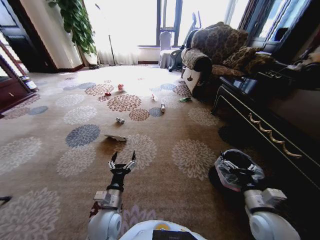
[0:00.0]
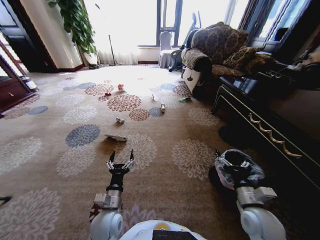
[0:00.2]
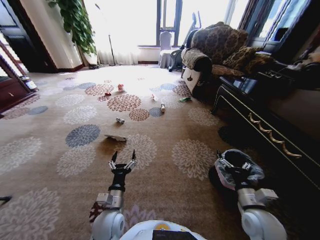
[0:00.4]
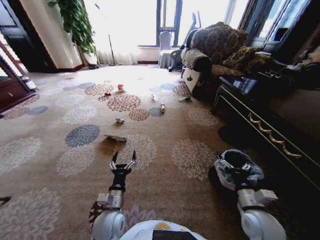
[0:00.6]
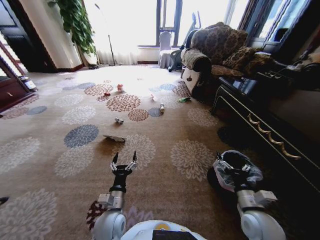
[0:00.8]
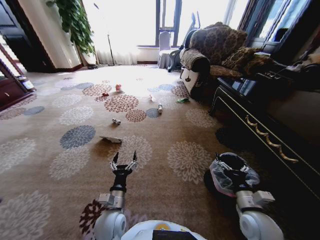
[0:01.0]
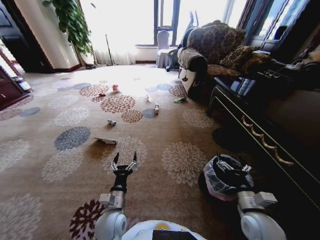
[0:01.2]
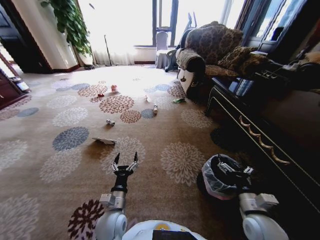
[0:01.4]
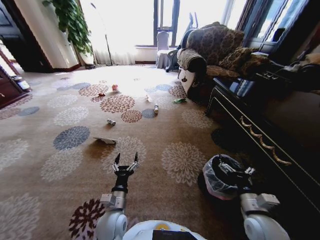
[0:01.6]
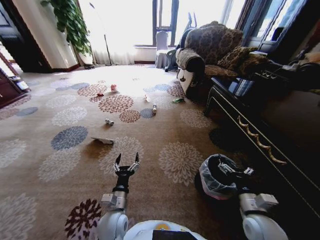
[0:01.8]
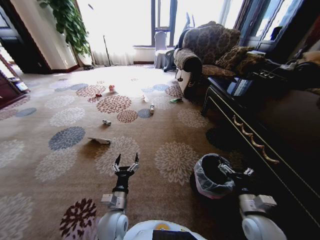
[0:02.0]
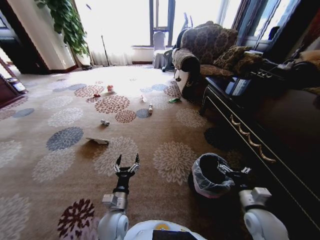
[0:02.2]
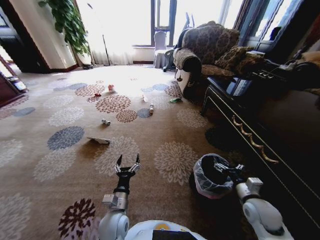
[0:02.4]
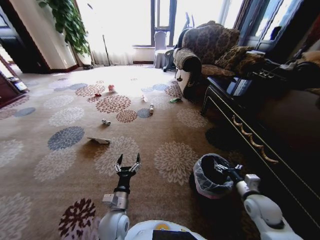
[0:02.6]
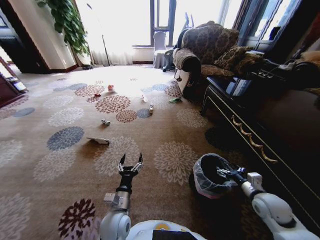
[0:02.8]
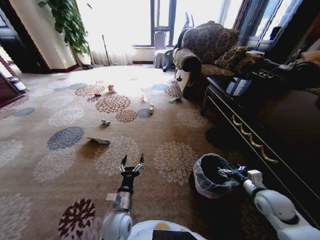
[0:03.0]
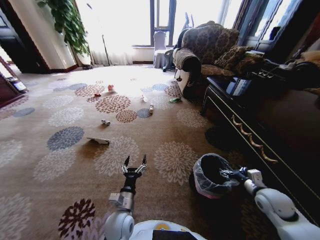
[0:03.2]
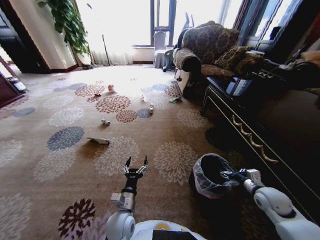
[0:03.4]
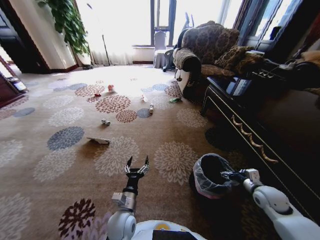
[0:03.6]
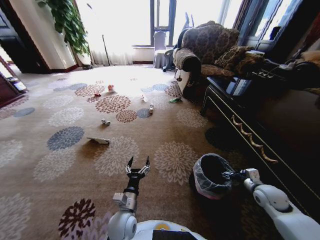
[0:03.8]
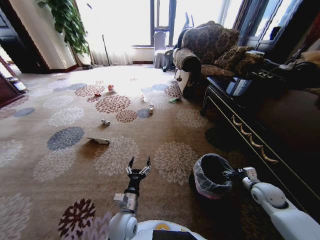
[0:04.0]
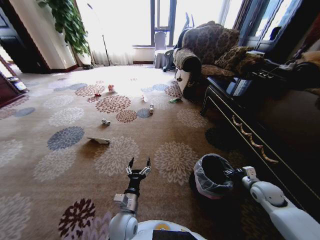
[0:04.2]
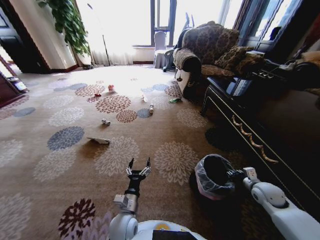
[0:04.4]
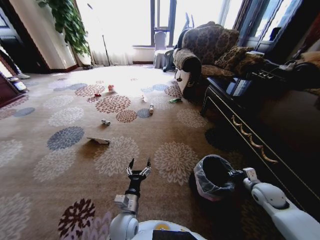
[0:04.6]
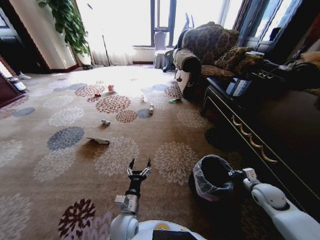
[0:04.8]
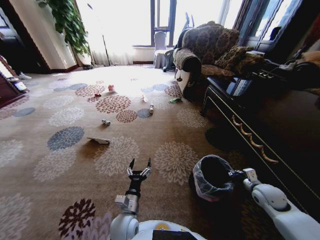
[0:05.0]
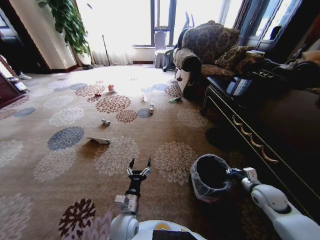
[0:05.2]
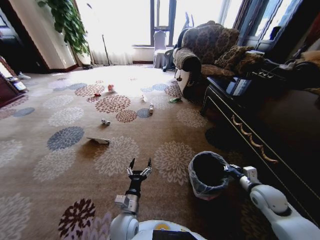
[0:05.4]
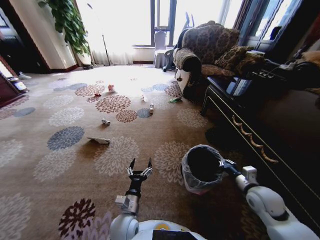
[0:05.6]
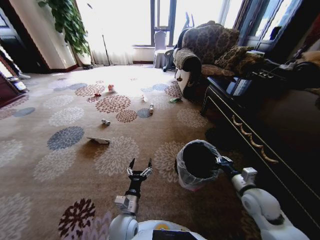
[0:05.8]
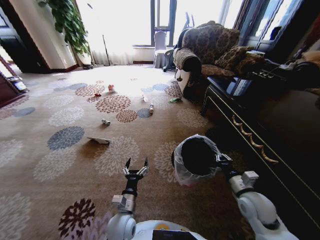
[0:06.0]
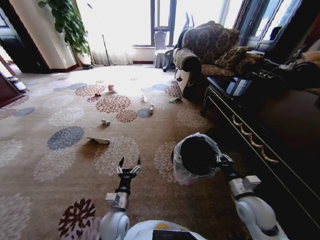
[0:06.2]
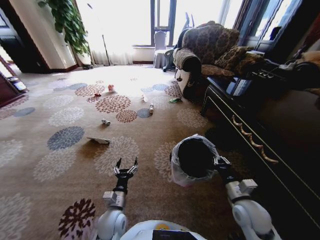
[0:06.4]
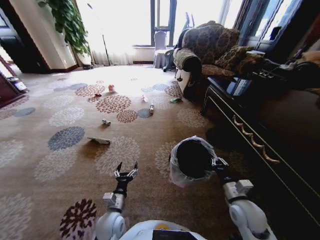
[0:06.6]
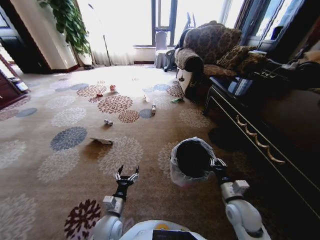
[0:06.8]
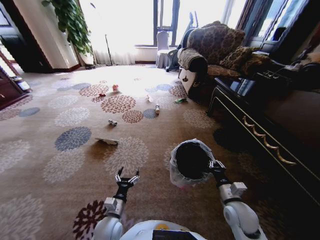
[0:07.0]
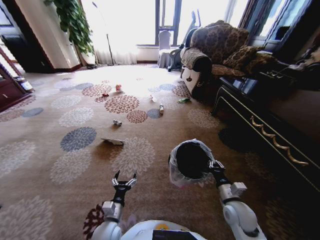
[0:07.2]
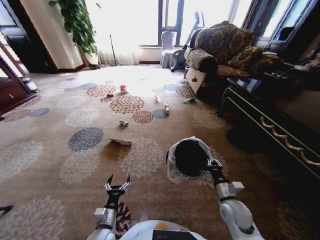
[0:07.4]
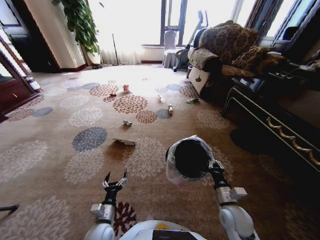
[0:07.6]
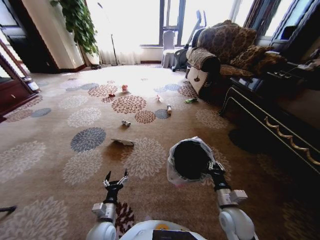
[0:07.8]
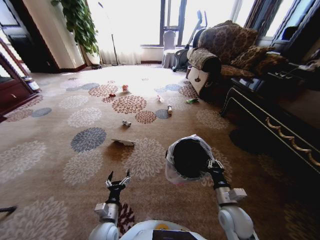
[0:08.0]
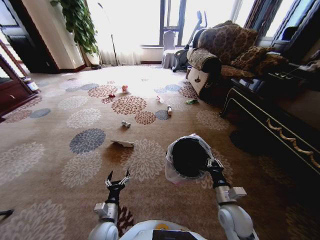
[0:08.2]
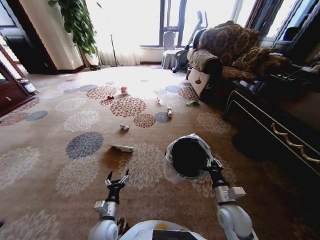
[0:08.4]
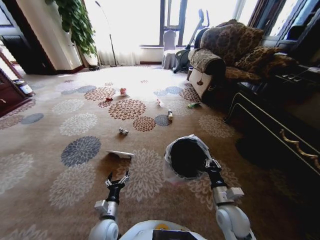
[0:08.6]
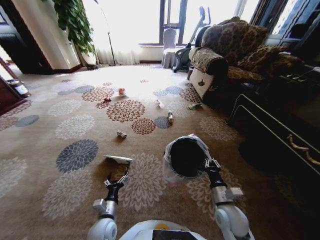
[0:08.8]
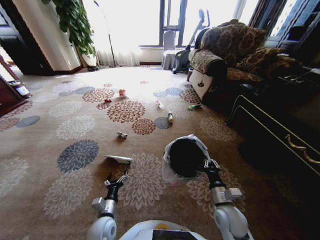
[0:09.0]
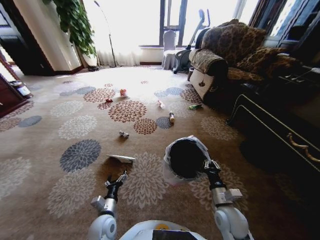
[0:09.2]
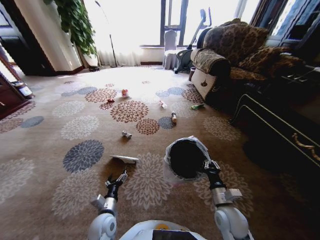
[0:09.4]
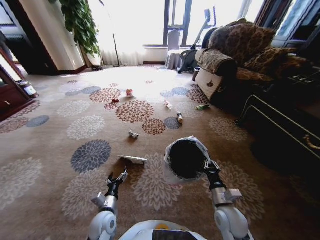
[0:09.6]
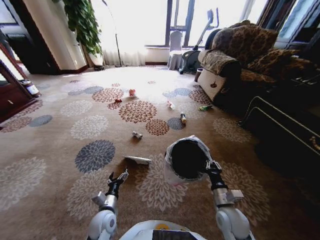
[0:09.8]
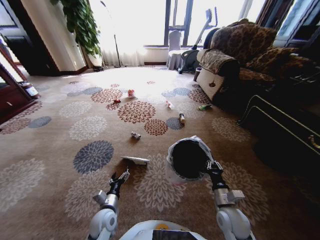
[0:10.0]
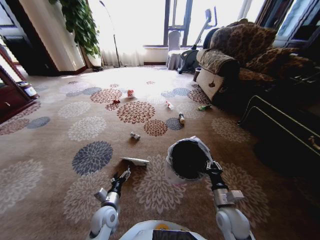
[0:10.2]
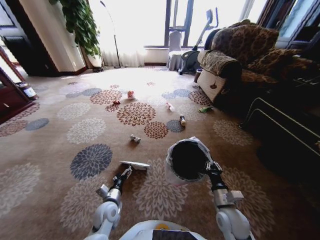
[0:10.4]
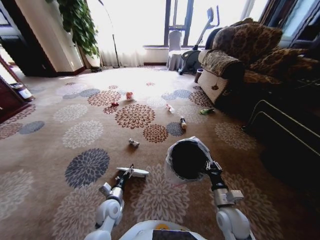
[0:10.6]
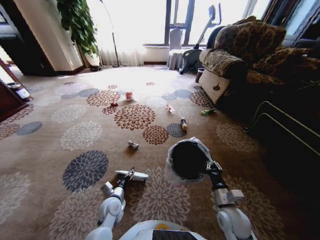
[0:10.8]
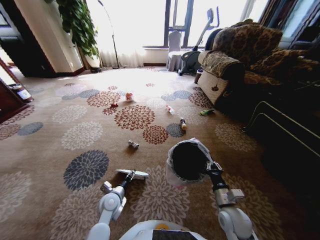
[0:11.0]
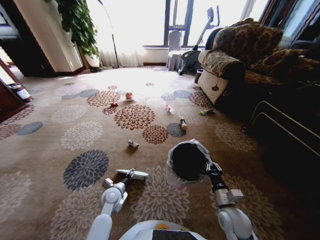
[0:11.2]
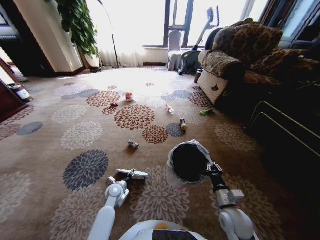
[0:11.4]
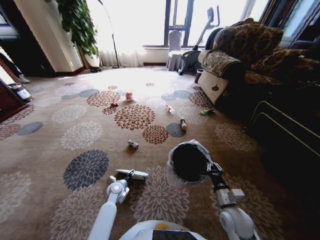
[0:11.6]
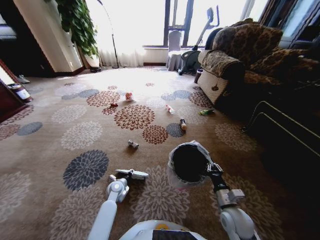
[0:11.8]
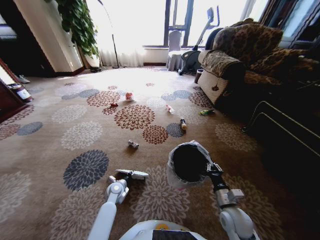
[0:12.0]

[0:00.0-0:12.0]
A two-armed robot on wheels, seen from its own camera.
Task of the whole recording: Pick up the trash from the ground and place it into the trash bin.
0:01.6 to 0:03.0: The right gripper shifts about 10 cm to the right and forward.
0:03.0 to 0:04.4: The right gripper ends up some 10 cm from where it was, and closes.
0:04.4 to 0:06.0: The right gripper heads to the left and backward, covering about 15 cm, and closes its fingers.
0:06.0 to 0:07.6: The right gripper goes about 10 cm to the left and downward. The left gripper goes some 10 cm to the left.
0:10.4 to 0:12.0: The left gripper is displaced forward and downward by roughly 10 cm, and closes up.

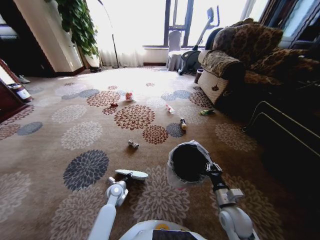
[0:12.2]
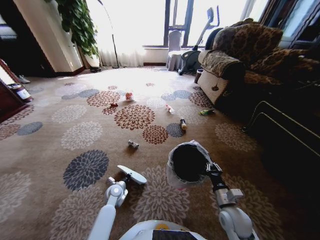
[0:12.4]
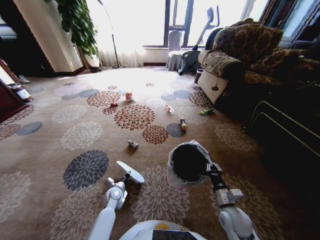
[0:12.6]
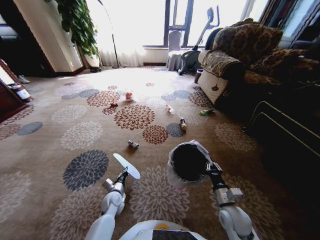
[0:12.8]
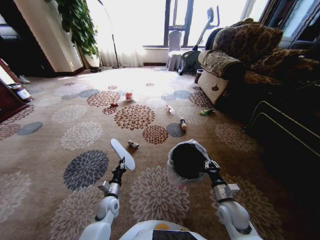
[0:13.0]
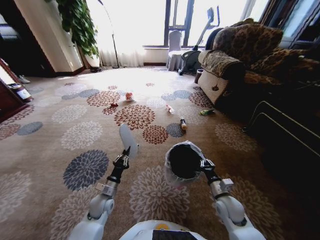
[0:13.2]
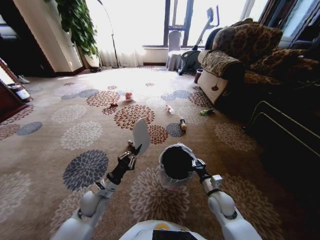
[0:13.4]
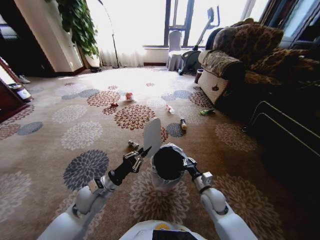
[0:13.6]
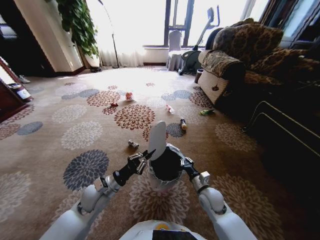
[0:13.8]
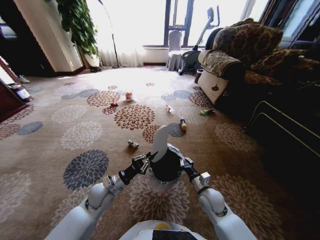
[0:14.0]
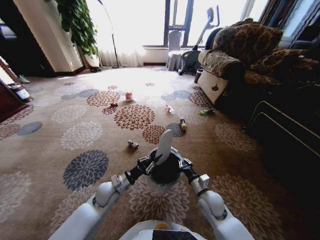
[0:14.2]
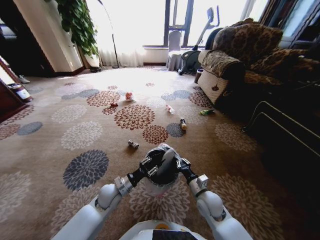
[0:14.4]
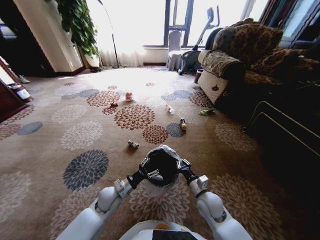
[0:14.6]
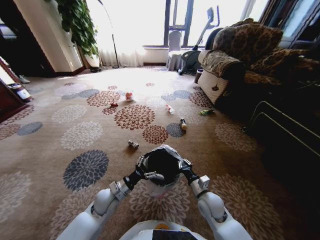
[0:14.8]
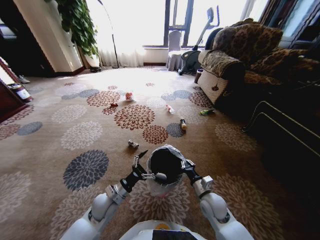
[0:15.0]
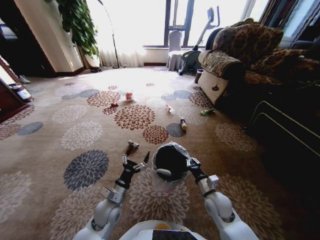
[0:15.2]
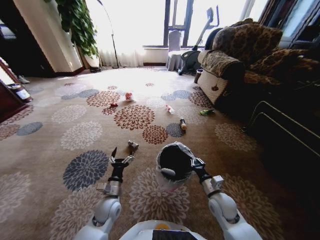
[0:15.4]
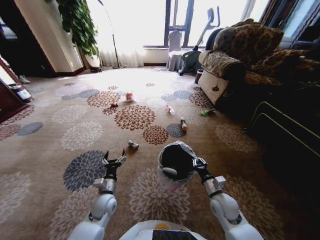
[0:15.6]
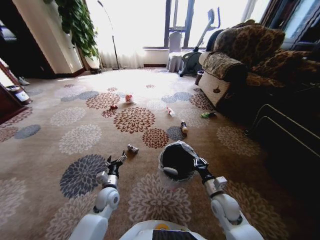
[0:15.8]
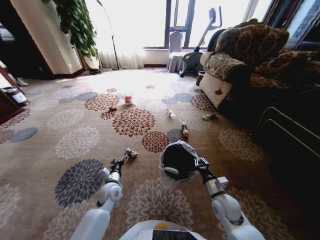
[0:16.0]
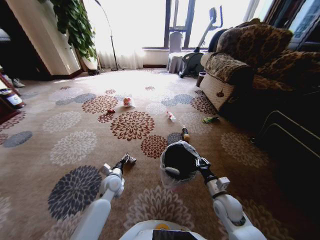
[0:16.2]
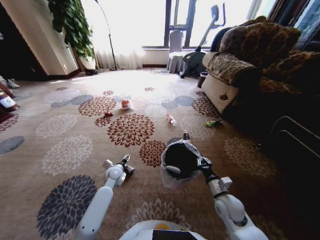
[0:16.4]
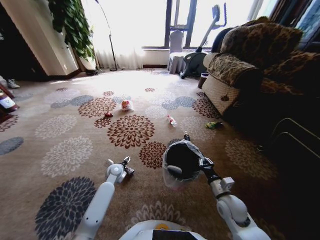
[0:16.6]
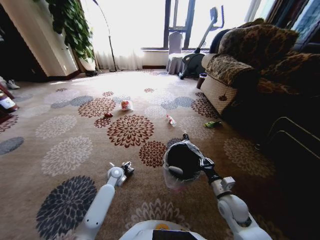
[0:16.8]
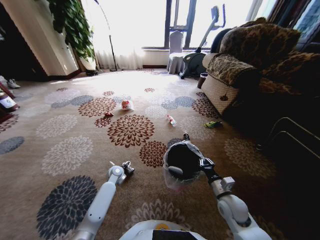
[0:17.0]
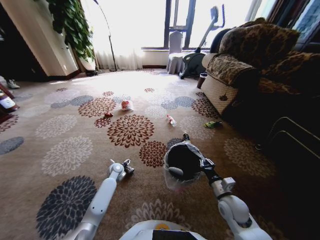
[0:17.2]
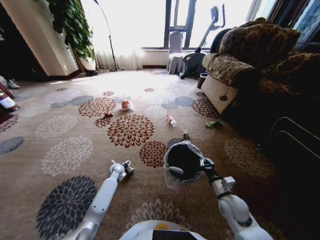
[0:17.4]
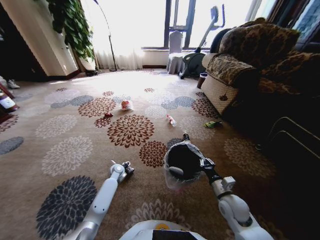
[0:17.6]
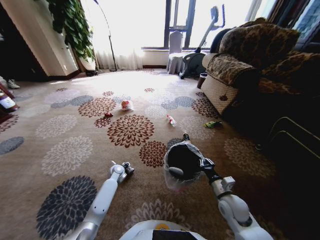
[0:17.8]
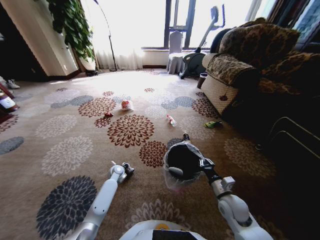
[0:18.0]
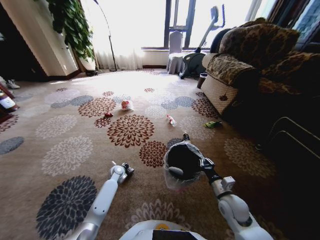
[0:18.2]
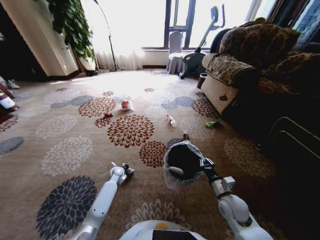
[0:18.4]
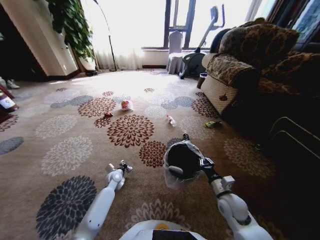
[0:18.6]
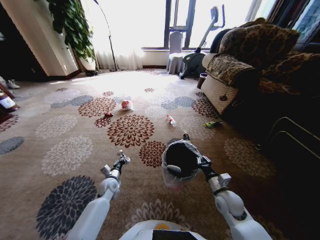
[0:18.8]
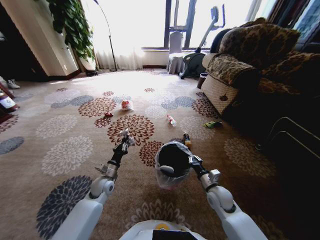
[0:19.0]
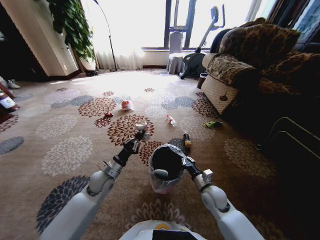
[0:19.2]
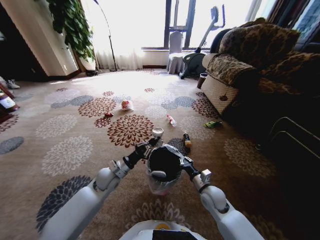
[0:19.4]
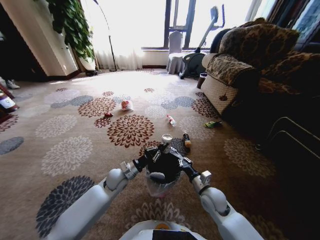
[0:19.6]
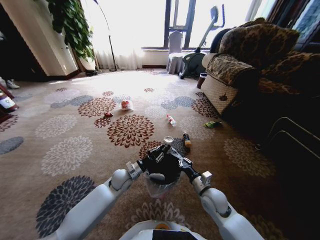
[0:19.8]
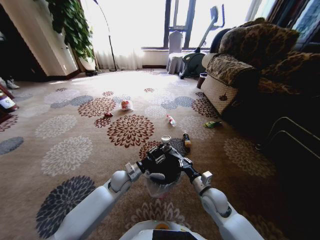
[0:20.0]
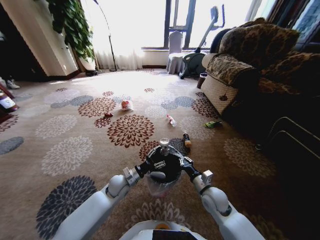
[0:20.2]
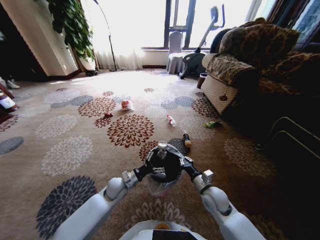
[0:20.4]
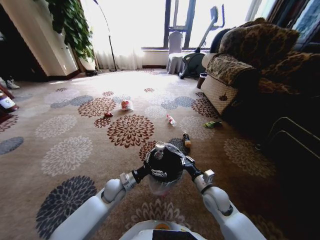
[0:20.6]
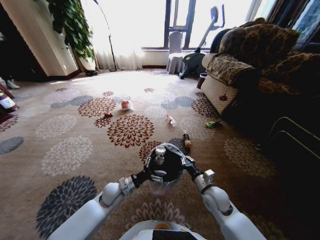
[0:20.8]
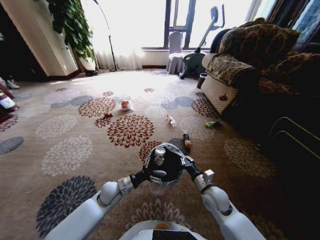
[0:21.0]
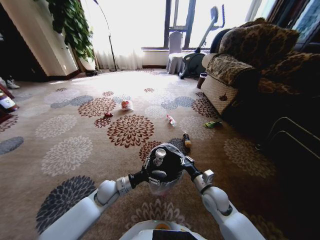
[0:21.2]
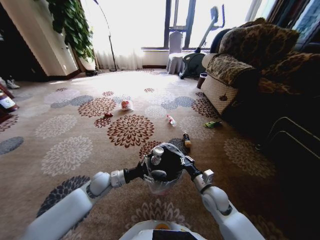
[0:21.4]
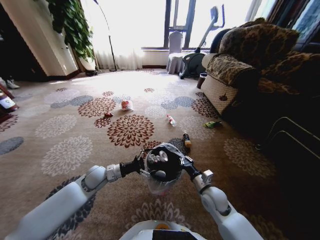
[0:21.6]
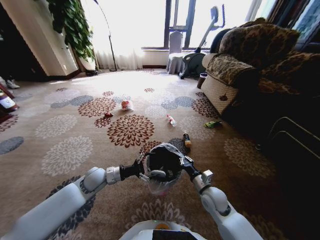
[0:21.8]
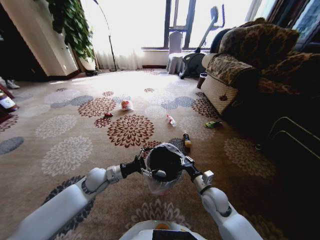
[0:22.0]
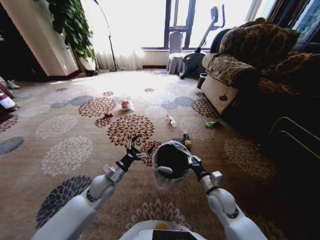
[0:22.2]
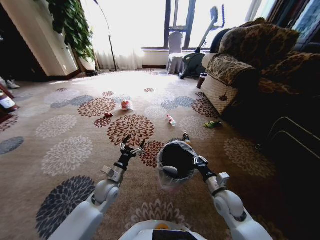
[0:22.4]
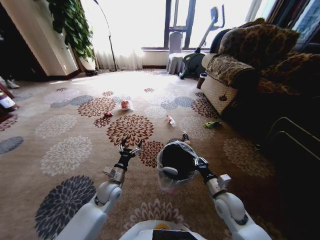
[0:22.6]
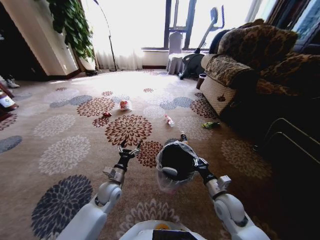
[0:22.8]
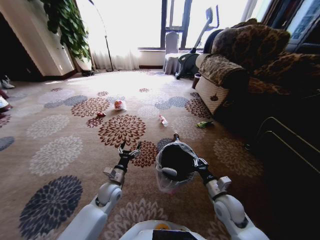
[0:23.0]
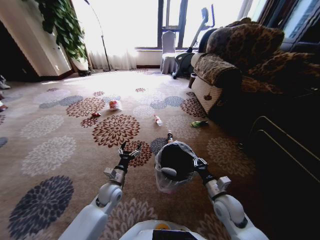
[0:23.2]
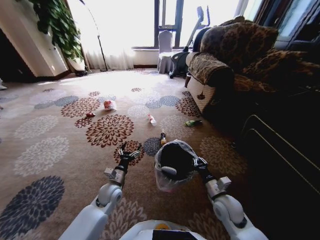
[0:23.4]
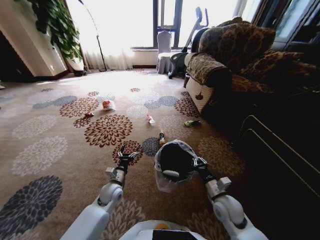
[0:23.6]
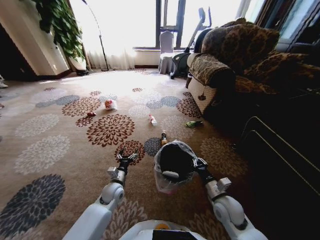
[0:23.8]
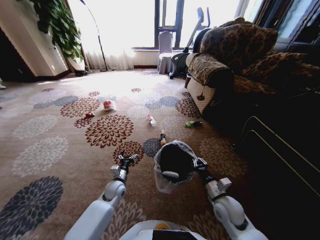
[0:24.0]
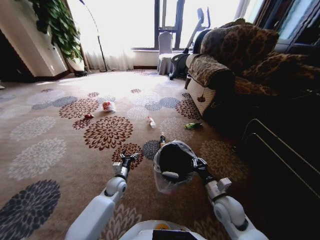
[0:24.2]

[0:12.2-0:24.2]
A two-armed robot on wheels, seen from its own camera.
Task of the whole recording: Pick up the trash from the ground and place it into the trash bin.
0:12.2 to 0:13.8: The right gripper heads forward and to the left, covering about 10 cm; the left gripper heads upward, covering roughly 15 cm.
0:13.8 to 0:15.2: The left gripper travels downward by some 5 cm, and opens.
0:15.2 to 0:16.6: The left gripper is displaced forward by roughly 15 cm. Meanwhile the right gripper ends up about 5 cm from where it was.
0:16.6 to 0:18.2: The left gripper moves downward, some 5 cm, and closes its fingers.
0:18.2 to 0:19.8: The right gripper shifts roughly 5 cm to the left, while the left gripper moves upward, to the right and backward, roughly 15 cm.
0:19.8 to 0:21.2: The left gripper moves backward, some 5 cm, and opens its fingers.
0:22.6 to 0:24.2: The left gripper travels downward by some 5 cm.
